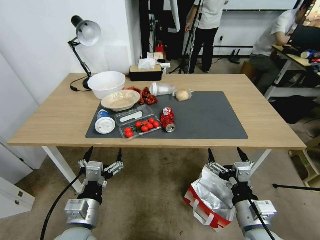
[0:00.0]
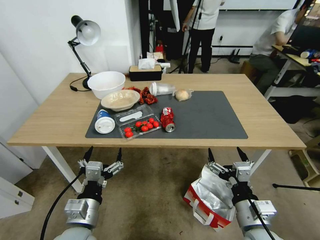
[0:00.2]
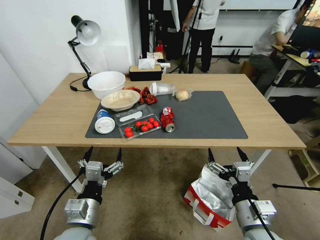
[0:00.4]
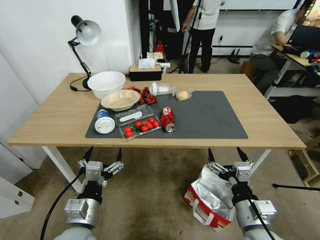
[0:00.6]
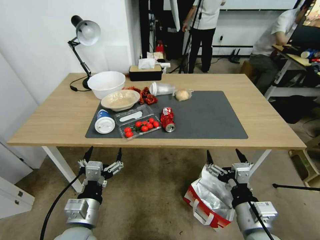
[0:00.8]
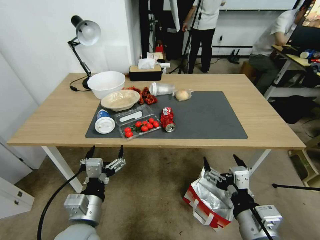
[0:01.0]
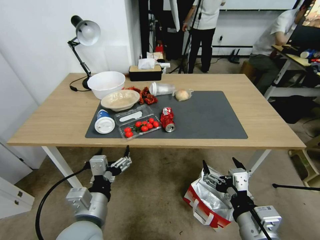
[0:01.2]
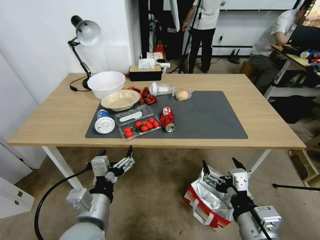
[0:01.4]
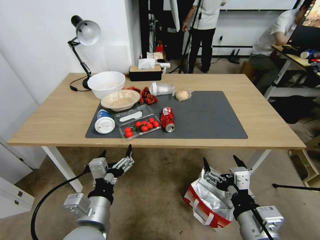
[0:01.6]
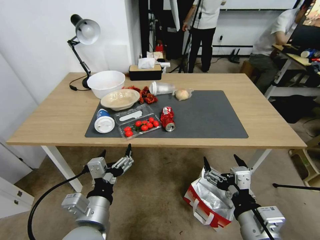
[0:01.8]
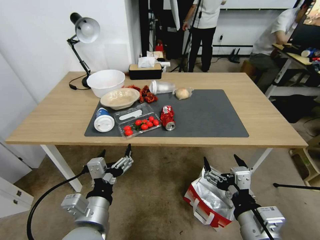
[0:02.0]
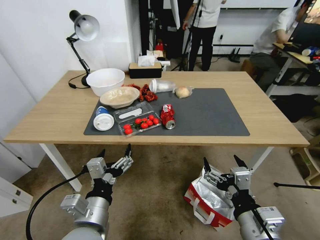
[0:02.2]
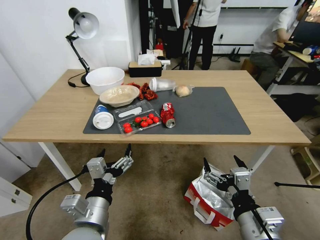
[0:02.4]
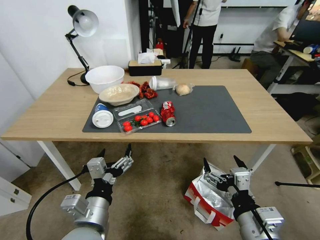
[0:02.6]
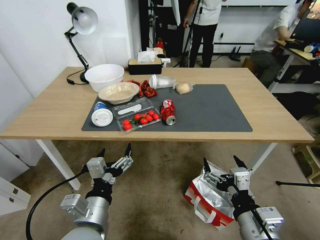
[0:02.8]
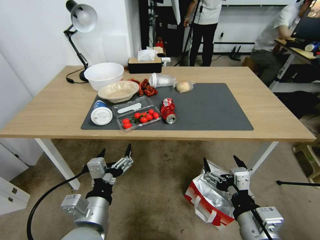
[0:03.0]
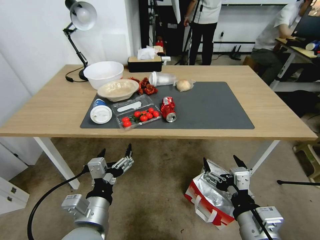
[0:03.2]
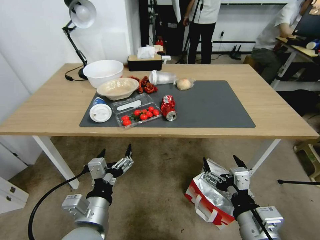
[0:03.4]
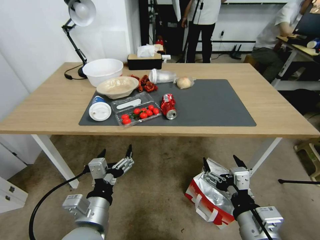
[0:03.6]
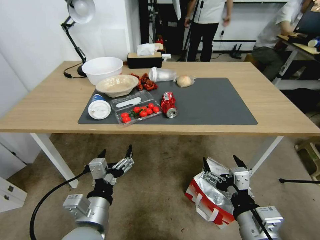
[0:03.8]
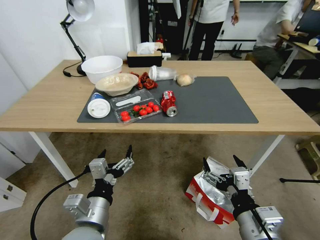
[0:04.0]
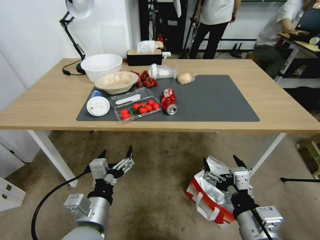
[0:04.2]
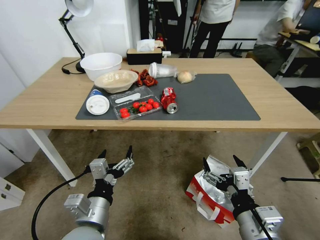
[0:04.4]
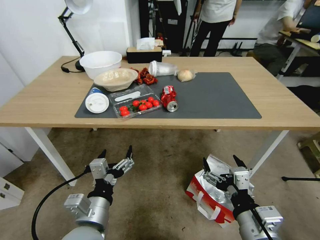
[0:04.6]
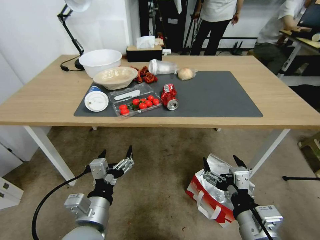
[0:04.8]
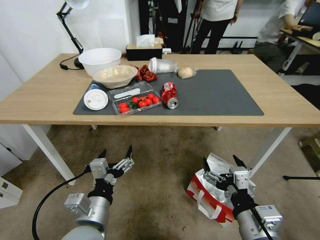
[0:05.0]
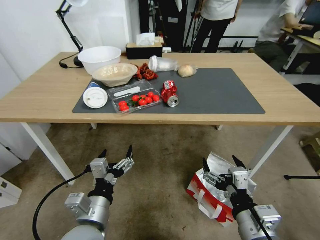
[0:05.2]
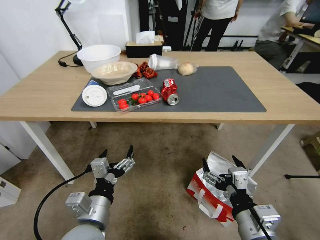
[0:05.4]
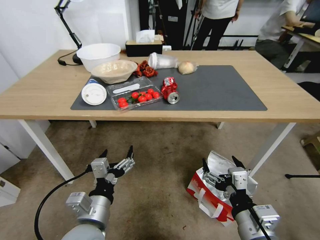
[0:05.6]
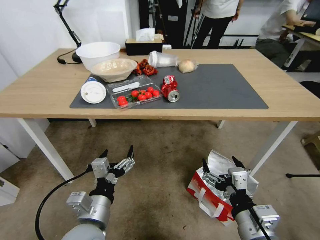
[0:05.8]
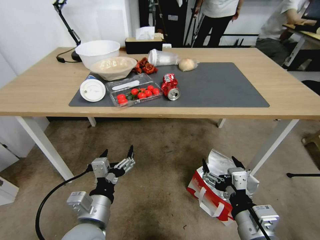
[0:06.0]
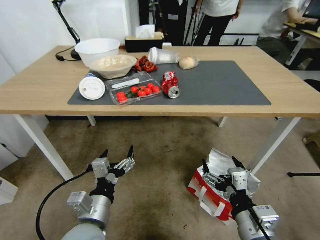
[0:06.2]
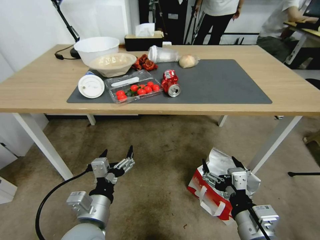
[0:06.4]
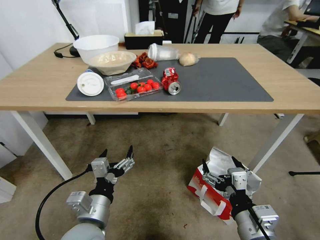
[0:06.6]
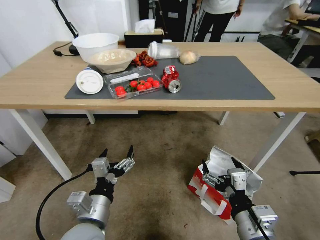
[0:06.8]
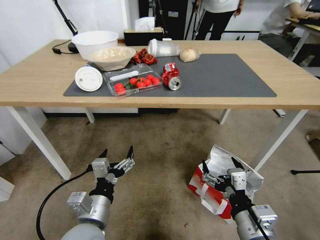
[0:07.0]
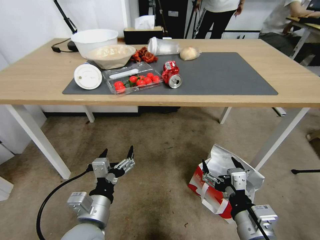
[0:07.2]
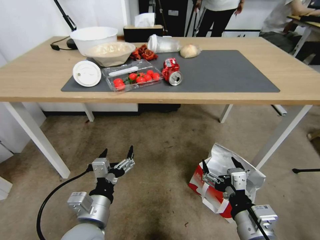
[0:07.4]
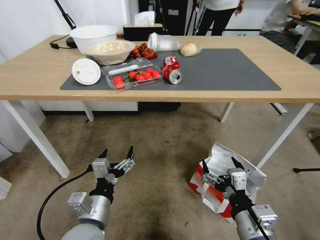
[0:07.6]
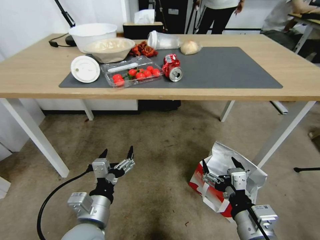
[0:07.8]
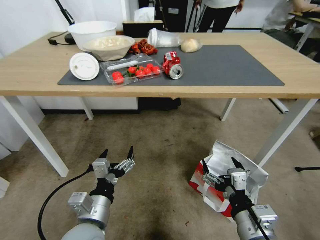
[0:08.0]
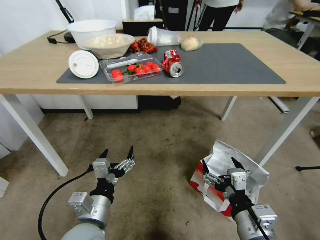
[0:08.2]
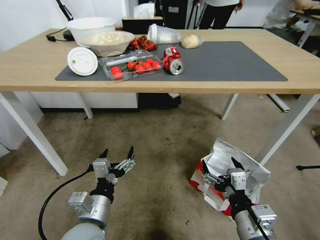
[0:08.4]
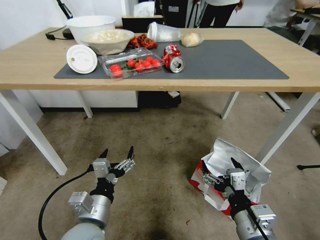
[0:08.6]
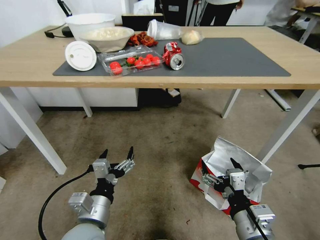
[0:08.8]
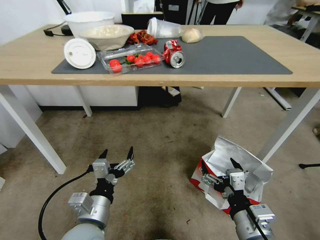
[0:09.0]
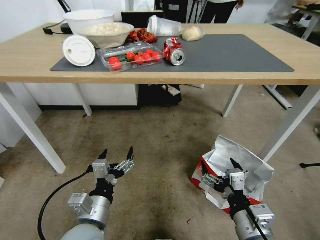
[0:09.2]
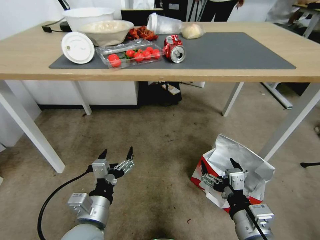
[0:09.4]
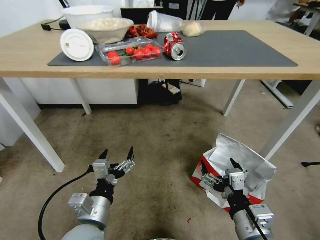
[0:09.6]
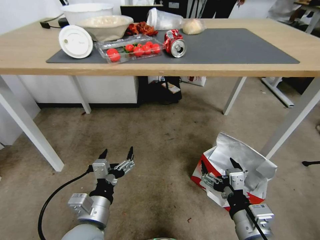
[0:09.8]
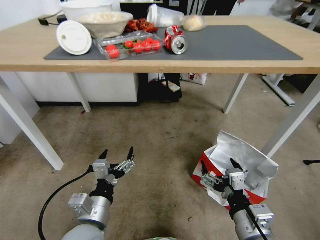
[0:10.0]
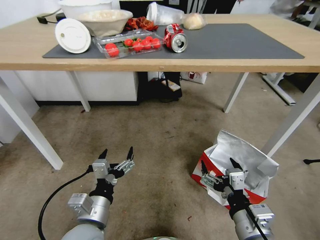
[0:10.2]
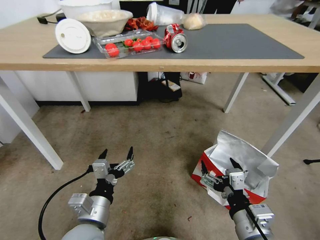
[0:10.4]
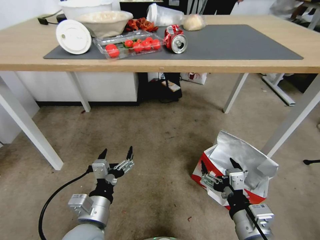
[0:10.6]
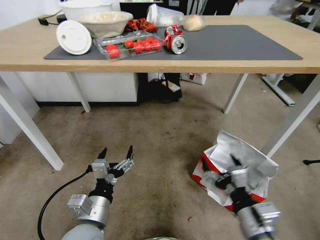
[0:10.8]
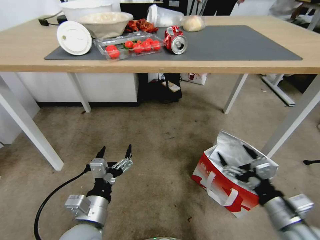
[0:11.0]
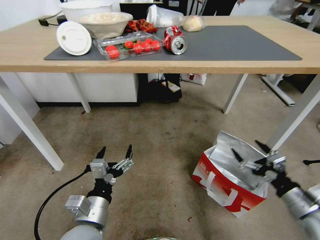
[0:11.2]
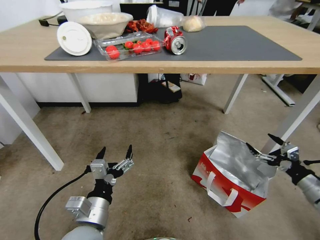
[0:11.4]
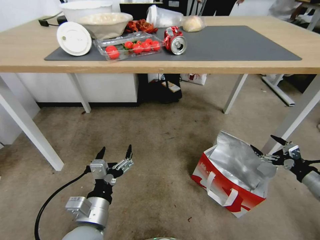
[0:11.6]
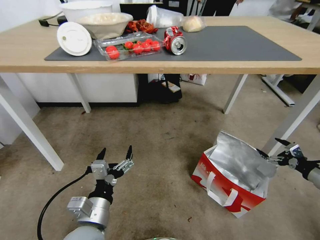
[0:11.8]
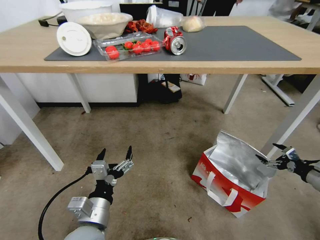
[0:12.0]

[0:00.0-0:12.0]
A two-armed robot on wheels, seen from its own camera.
Task of the whole recording: Pick up the food delivery bag from the floor and place it on the table.
0:10.4 to 0:12.0: The right gripper shifts some 40 cm to the right and forward.

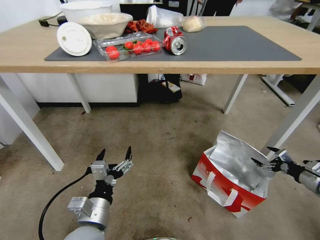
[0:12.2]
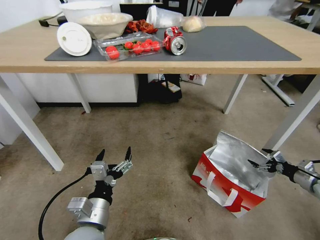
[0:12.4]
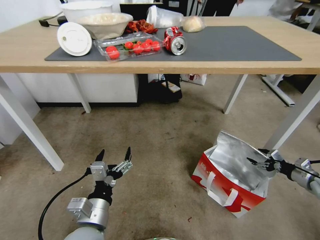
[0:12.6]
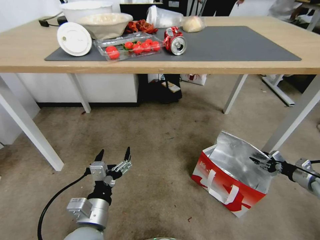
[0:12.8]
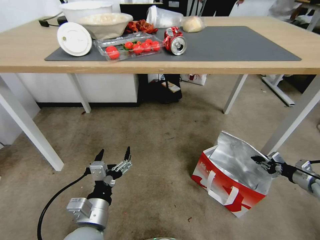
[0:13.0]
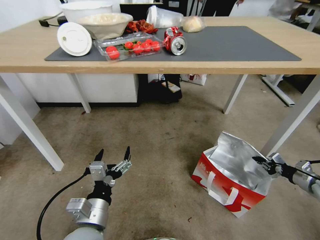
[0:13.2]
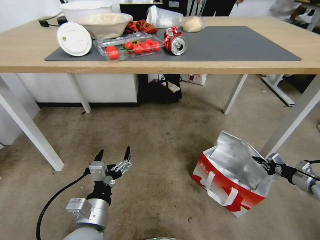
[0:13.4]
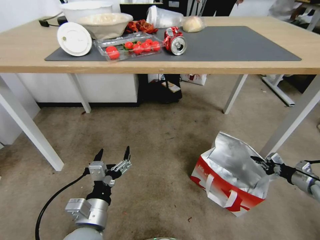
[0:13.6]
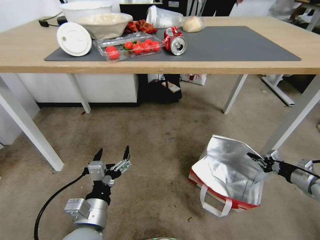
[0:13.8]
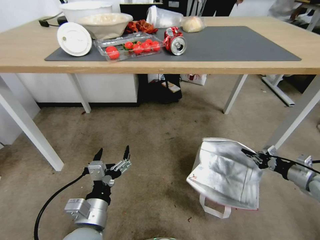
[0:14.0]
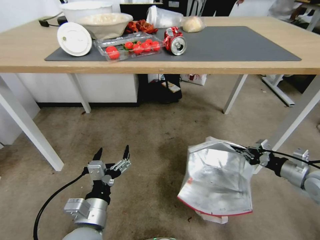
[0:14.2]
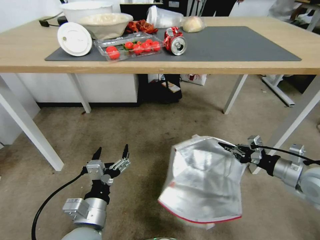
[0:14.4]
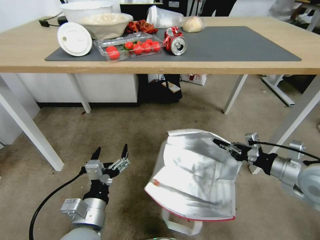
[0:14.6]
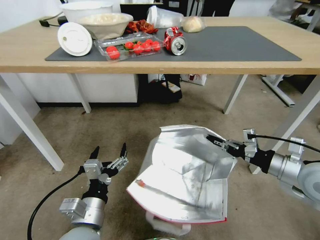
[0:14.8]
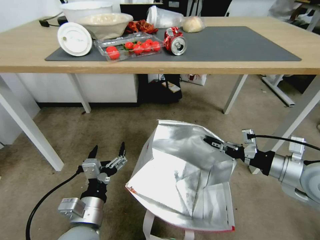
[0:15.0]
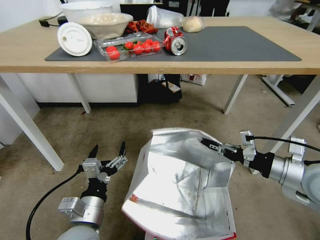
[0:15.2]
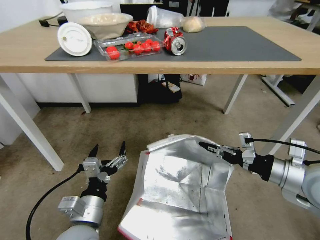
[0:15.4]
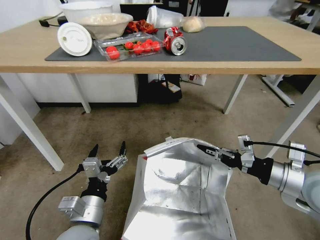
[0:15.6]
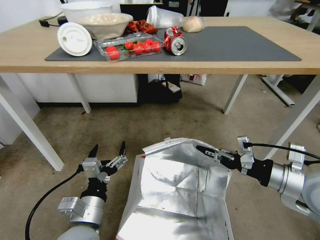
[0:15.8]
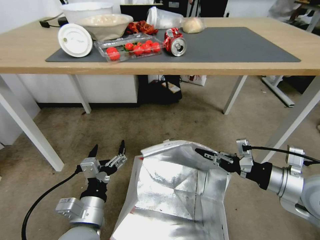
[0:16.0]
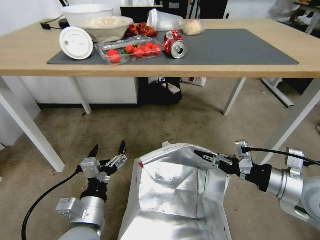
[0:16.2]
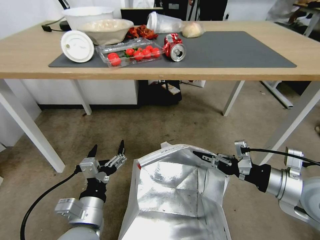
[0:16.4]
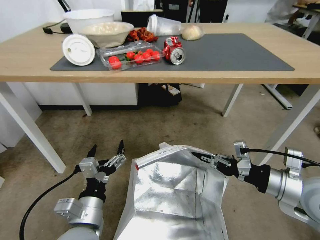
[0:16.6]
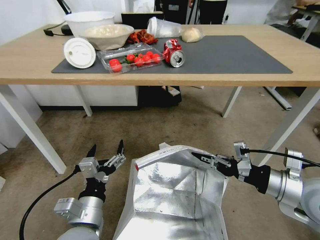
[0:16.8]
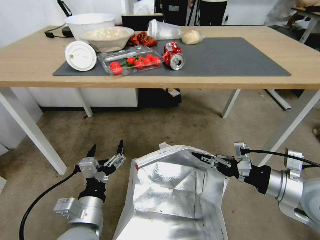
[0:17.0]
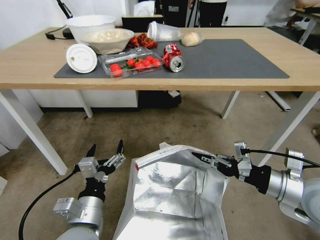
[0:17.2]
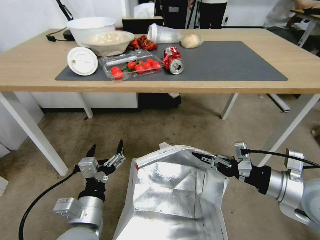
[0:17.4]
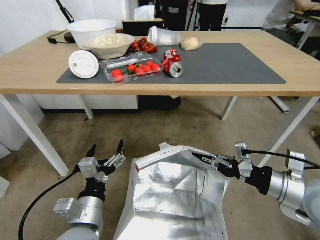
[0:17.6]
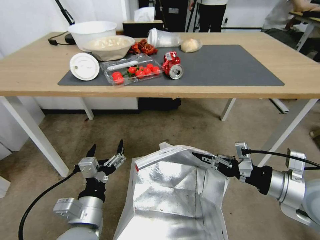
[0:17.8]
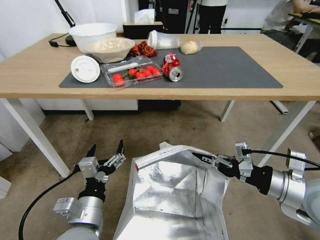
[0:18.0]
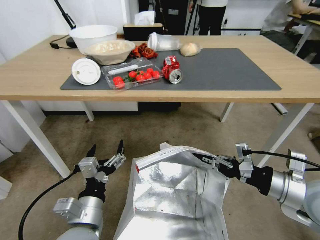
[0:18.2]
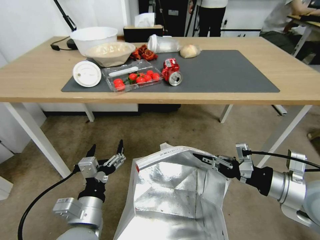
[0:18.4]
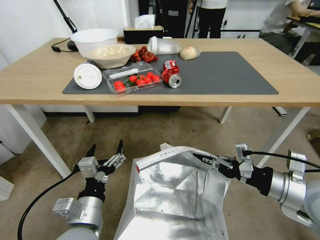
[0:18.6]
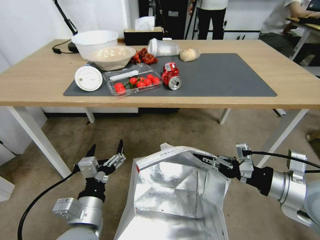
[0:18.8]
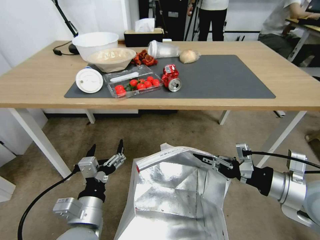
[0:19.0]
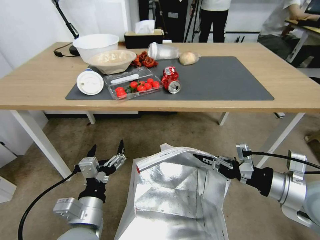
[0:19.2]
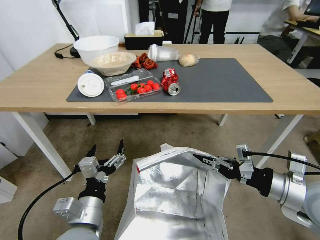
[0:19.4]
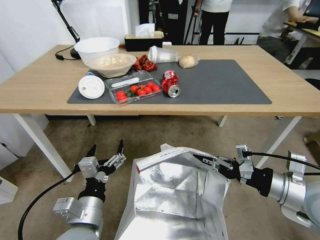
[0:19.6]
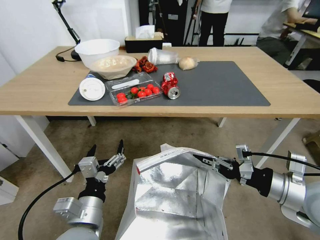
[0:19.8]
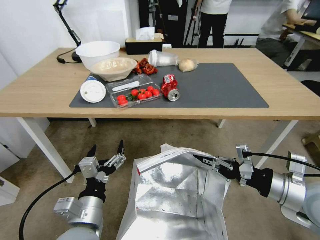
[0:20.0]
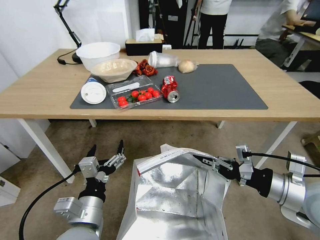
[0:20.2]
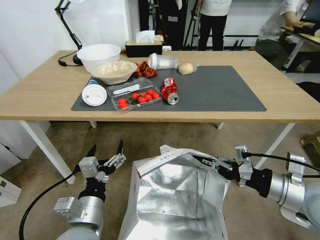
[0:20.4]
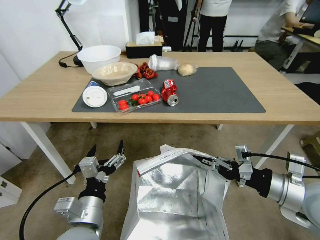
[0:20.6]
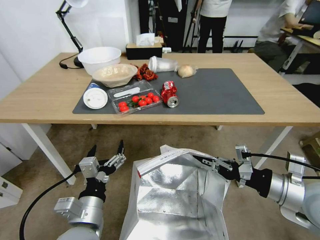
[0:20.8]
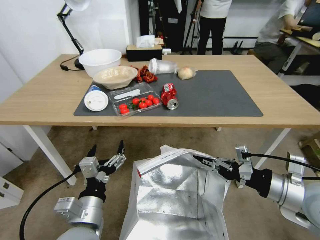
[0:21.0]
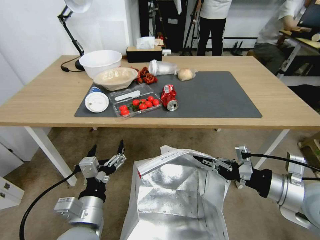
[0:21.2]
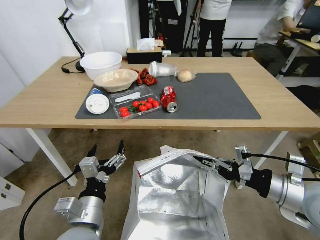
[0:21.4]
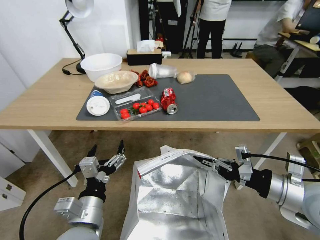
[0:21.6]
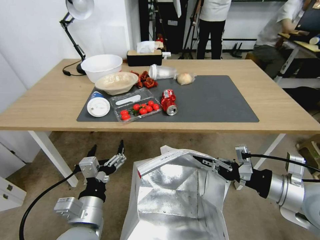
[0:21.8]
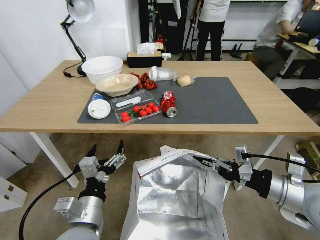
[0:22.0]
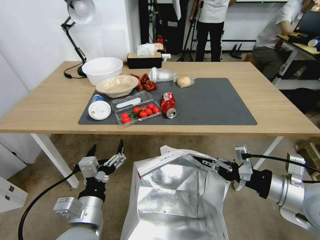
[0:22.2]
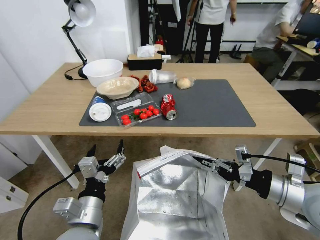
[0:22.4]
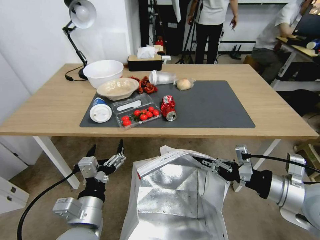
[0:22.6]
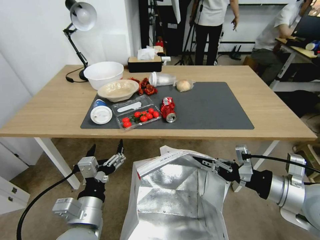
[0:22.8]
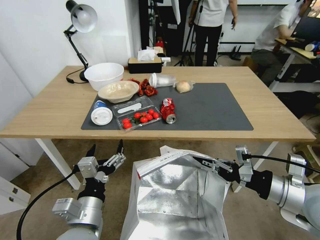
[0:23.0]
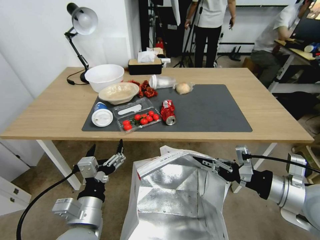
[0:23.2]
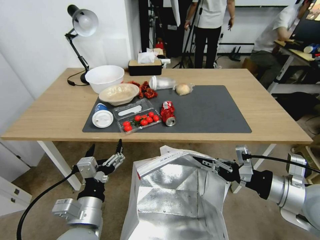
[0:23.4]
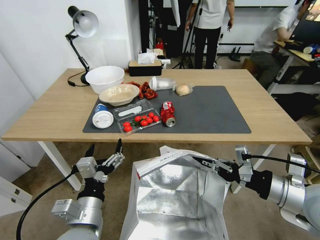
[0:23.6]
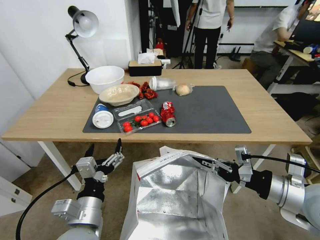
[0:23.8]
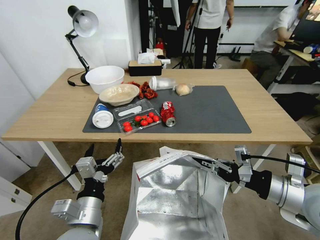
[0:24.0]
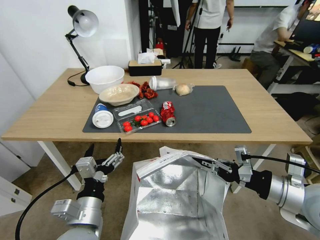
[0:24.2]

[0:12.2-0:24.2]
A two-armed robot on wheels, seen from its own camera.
Task of the whole recording: Pick up the food delivery bag from the floor and place it on the table.
0:12.2 to 0:13.8: The right gripper closes.
0:13.8 to 0:15.2: The right gripper goes approximately 25 cm to the left and upward.
